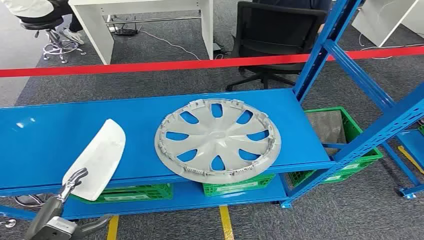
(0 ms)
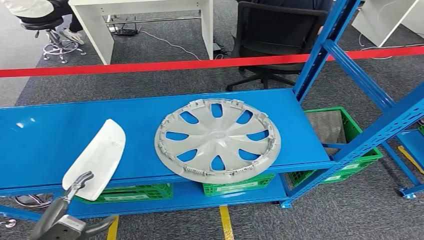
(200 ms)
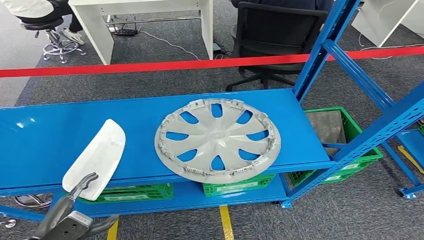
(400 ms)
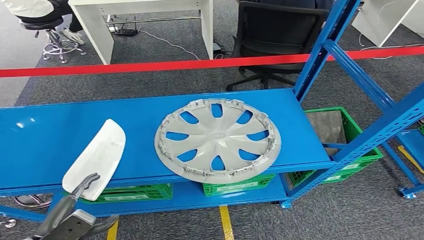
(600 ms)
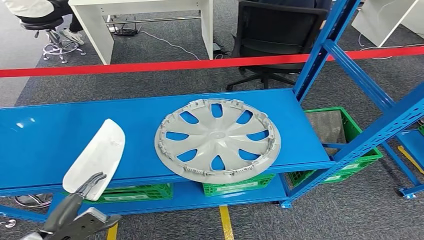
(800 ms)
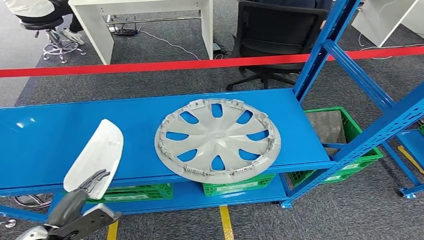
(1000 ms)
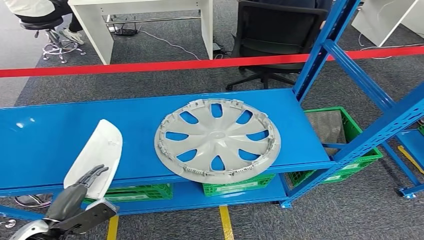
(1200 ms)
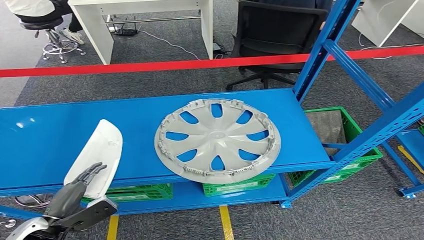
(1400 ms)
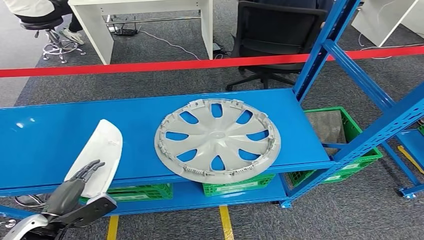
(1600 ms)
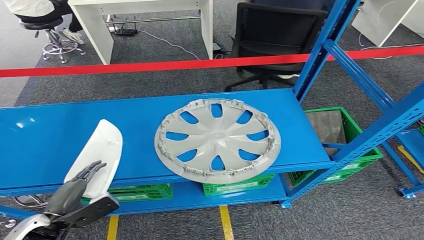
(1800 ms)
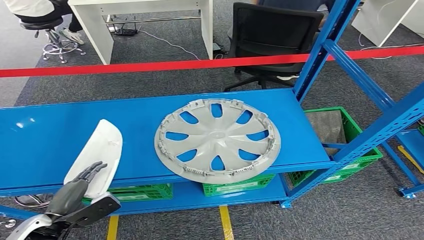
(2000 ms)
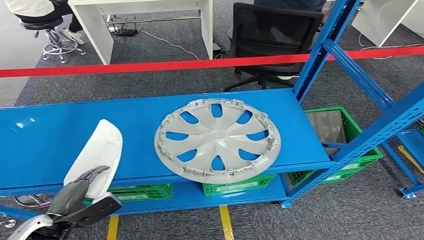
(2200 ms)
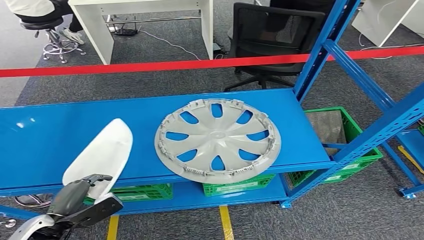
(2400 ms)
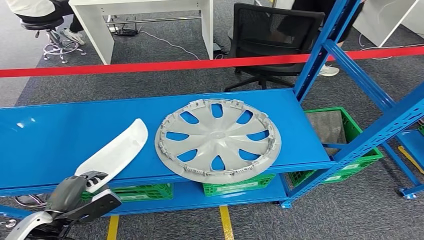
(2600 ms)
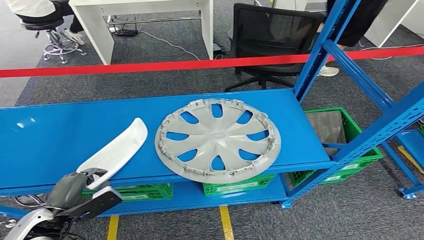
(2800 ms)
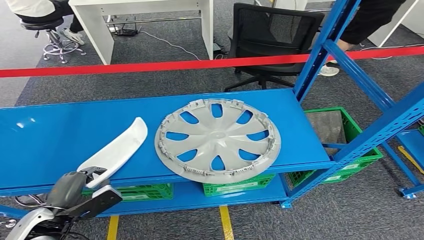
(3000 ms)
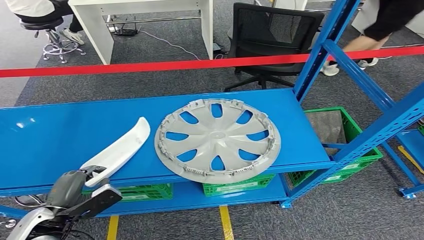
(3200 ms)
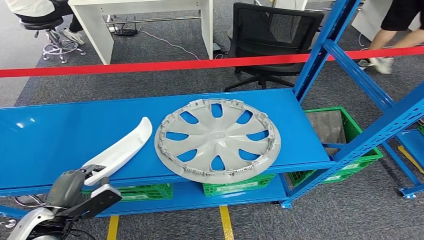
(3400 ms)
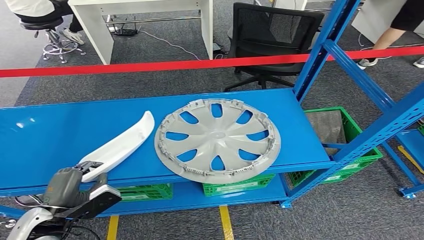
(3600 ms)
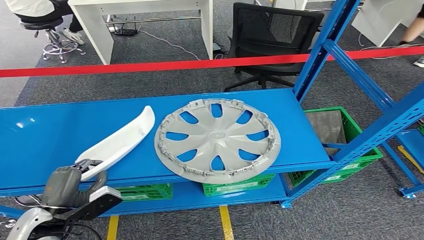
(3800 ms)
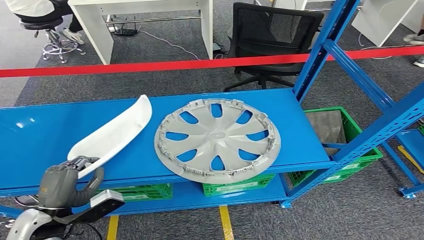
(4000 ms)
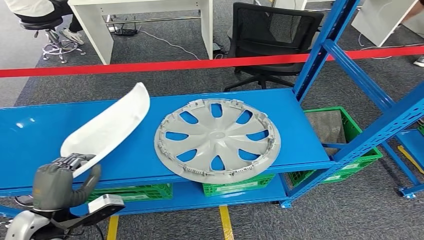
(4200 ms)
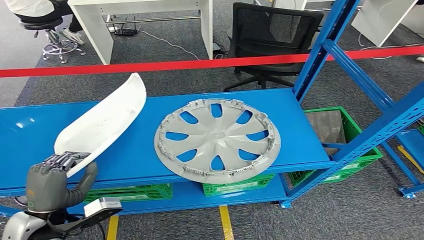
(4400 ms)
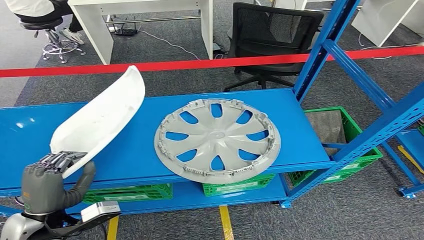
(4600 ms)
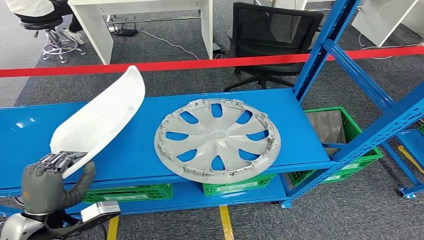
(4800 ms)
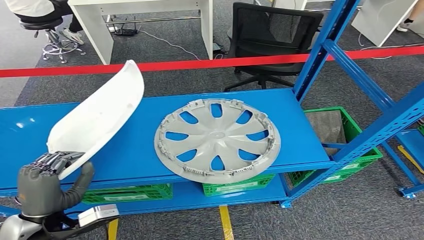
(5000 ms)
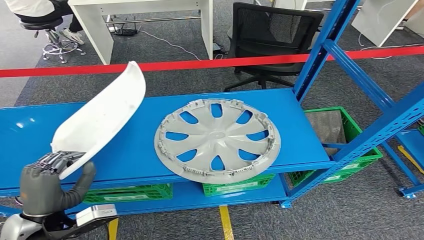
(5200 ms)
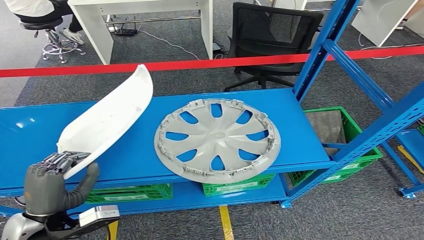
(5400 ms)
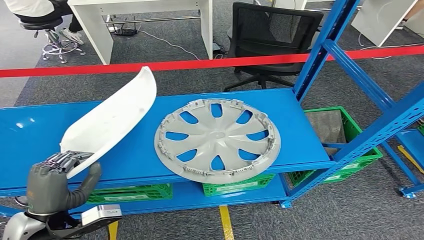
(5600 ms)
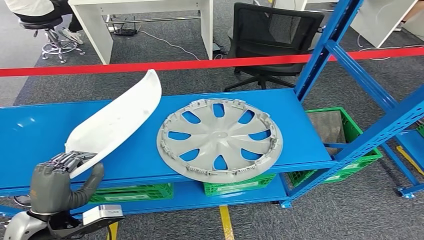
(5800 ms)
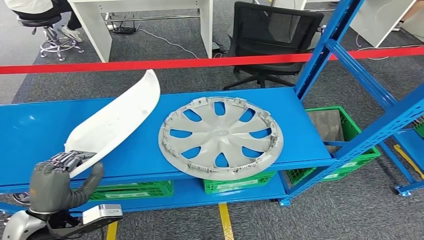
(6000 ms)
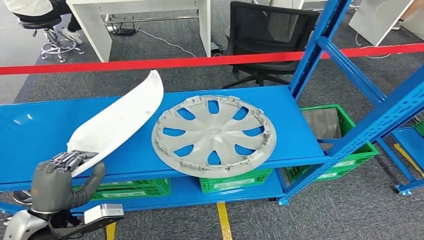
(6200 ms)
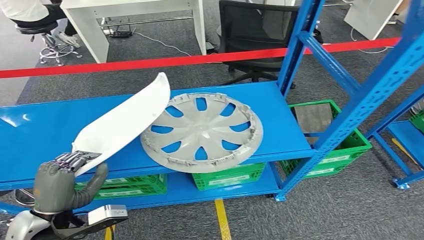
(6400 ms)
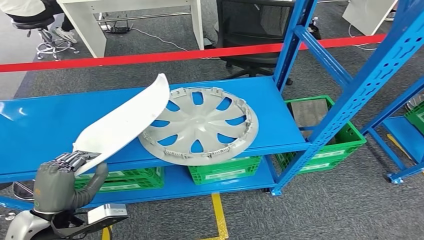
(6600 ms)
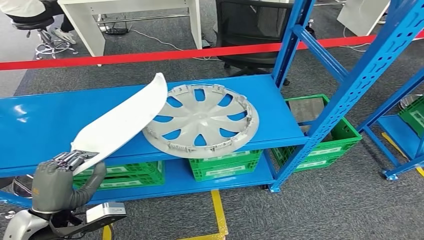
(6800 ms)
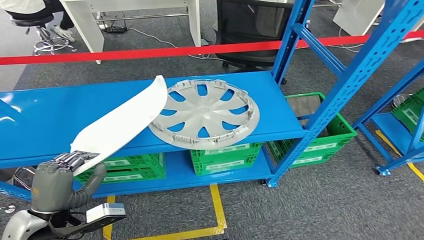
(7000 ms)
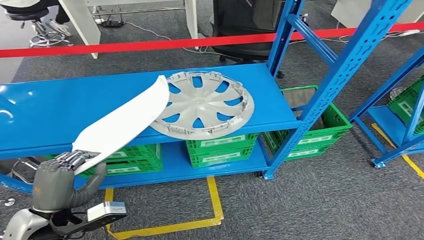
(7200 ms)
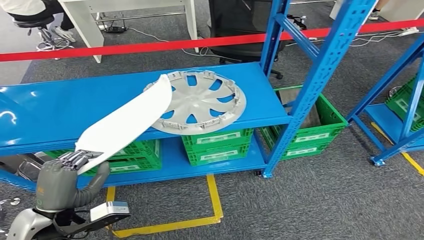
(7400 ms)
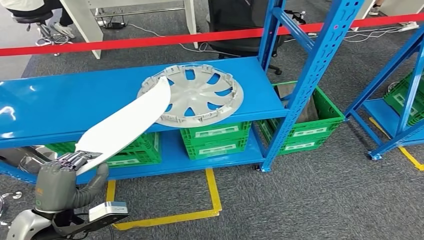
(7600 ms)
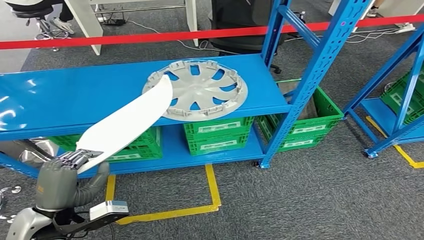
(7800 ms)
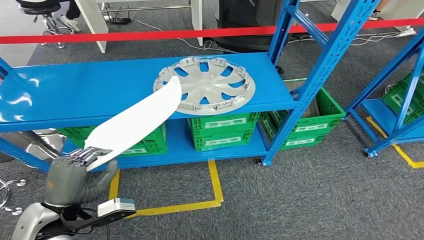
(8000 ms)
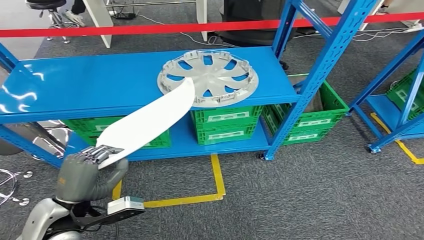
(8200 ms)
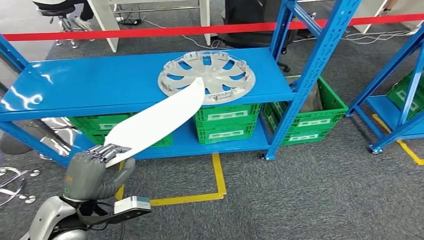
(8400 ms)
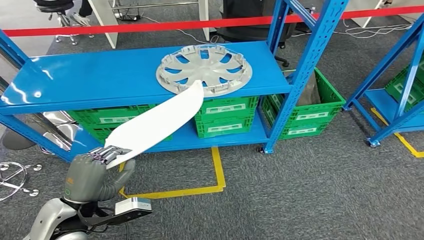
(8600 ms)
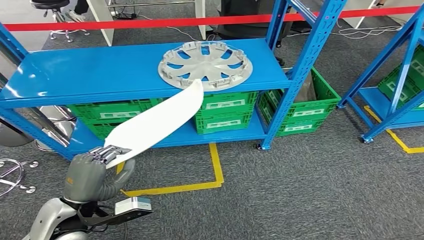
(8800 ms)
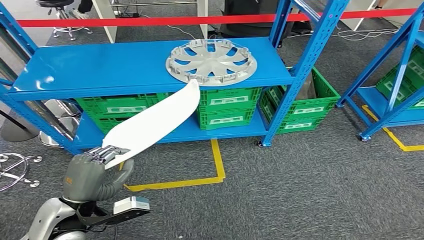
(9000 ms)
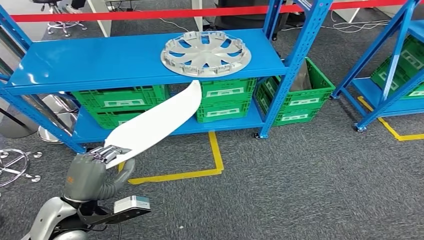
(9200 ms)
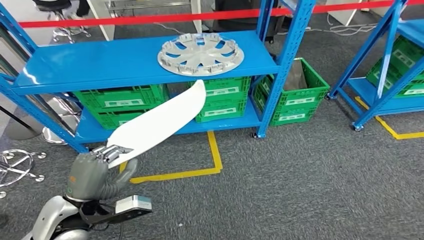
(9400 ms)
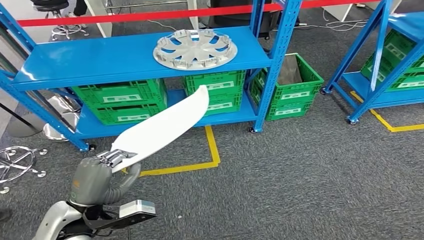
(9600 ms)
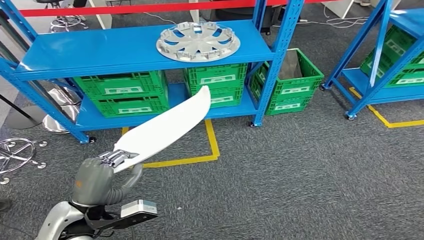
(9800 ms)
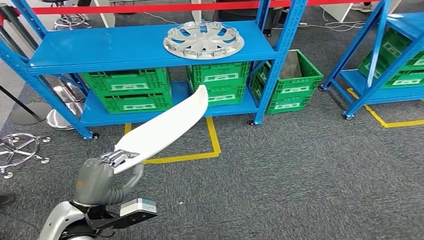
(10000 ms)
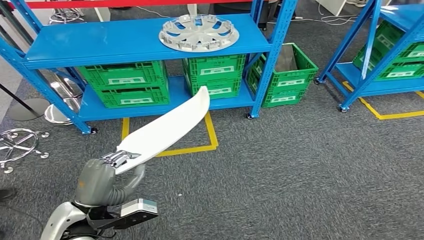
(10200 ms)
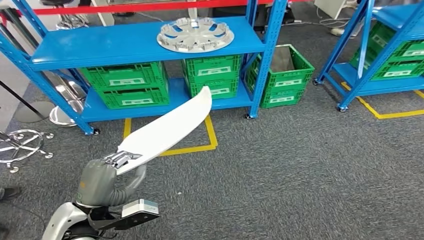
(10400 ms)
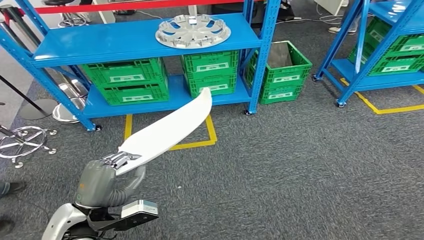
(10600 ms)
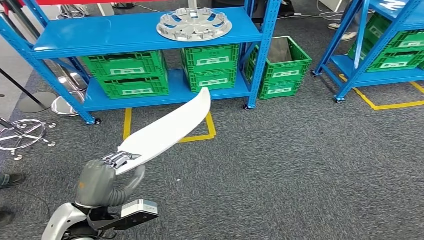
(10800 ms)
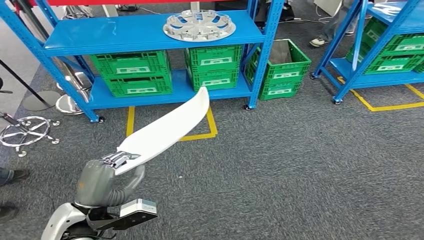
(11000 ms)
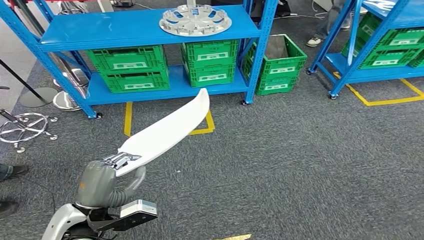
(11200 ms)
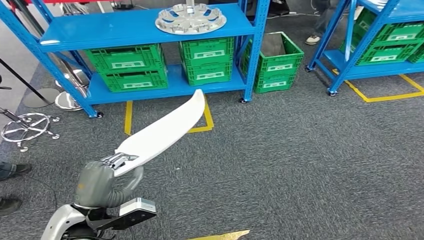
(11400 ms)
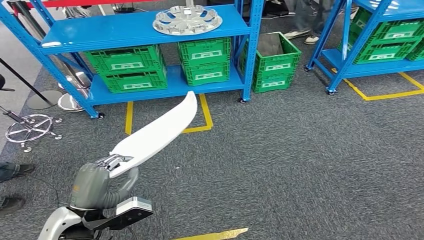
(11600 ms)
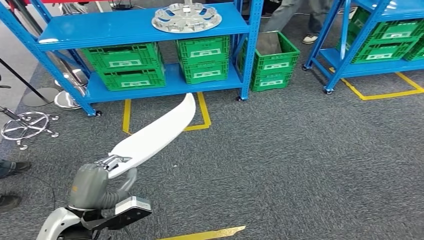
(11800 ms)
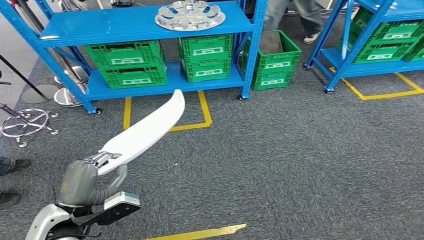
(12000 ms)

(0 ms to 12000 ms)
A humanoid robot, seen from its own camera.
Step, 0 ms - 8600 ms: Pick up the small component from the shelf.
1600 ms - 3000 ms: The hands make only small movements.
3000 ms - 4400 ms: The left hand moves approximately 5 cm.
4400 ms - 6000 ms: The hands move only a little.

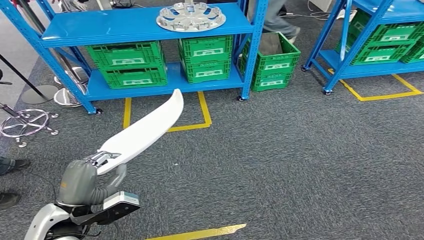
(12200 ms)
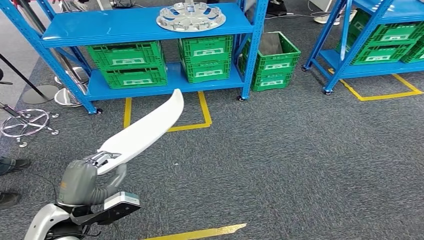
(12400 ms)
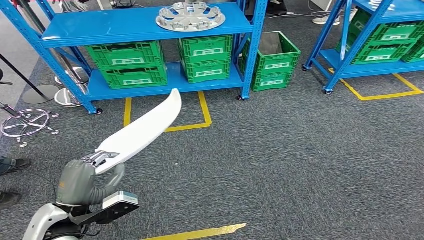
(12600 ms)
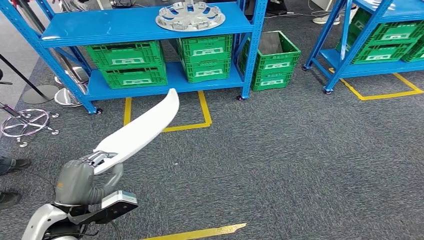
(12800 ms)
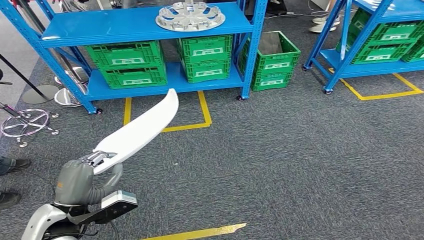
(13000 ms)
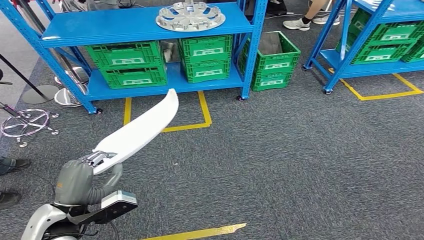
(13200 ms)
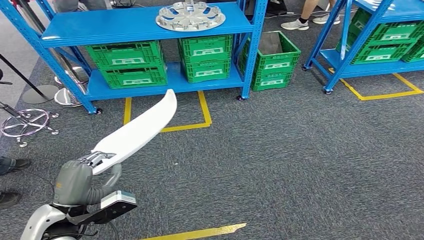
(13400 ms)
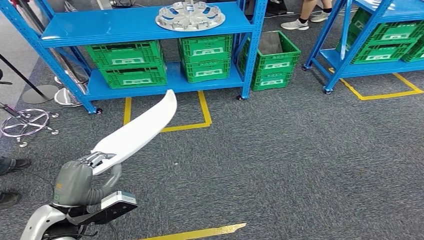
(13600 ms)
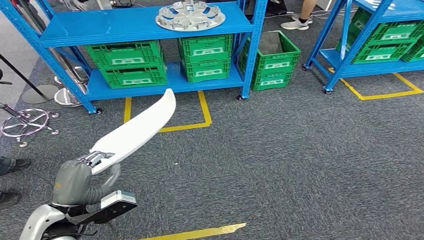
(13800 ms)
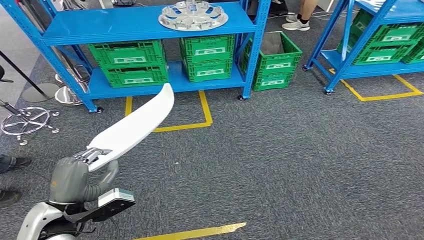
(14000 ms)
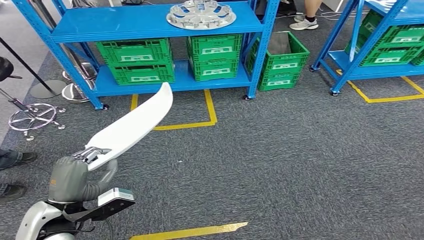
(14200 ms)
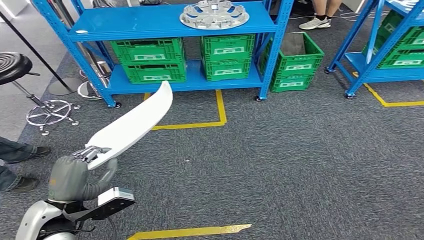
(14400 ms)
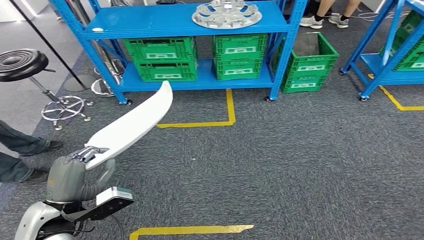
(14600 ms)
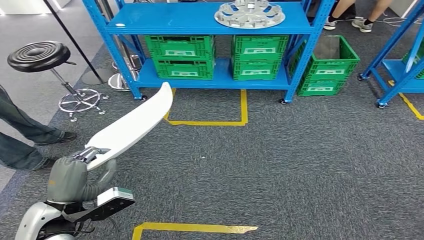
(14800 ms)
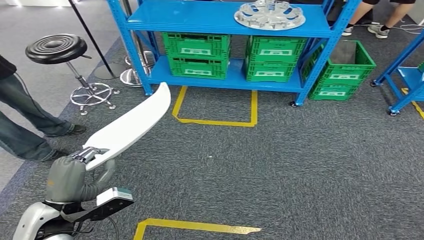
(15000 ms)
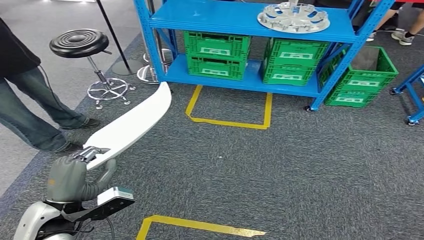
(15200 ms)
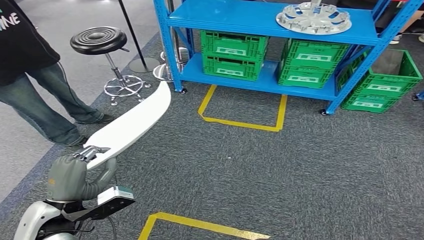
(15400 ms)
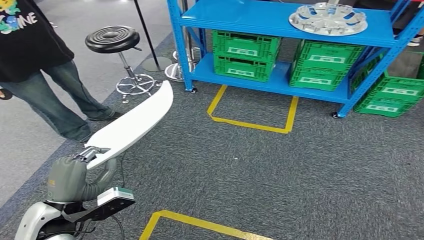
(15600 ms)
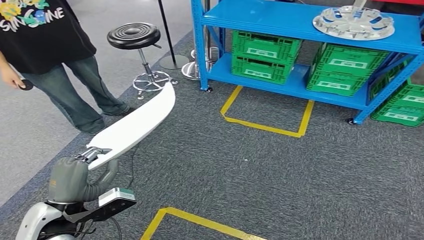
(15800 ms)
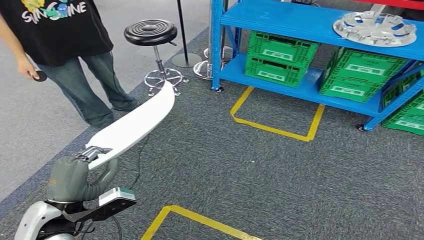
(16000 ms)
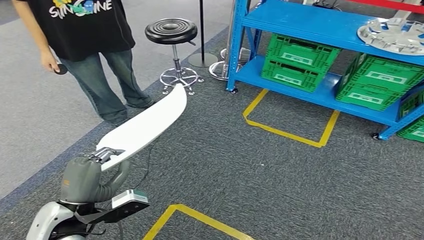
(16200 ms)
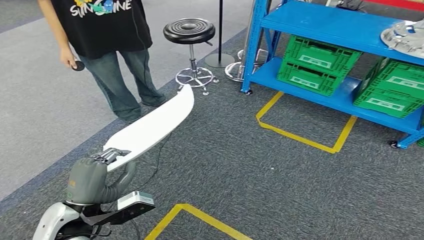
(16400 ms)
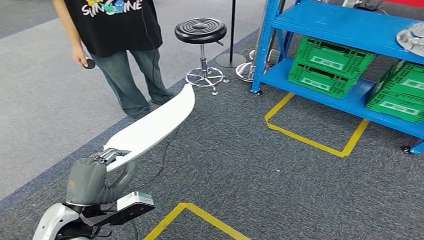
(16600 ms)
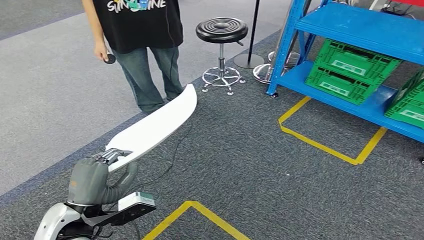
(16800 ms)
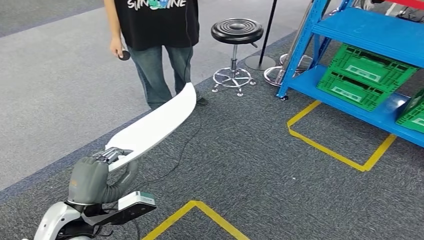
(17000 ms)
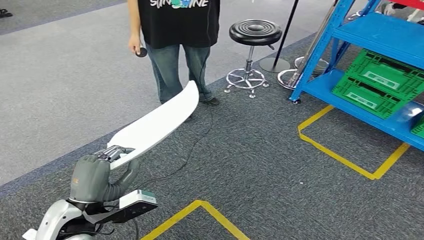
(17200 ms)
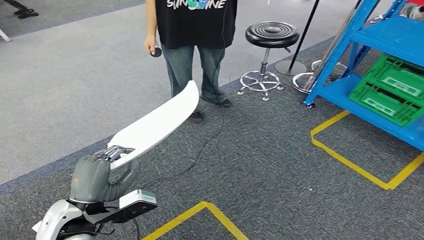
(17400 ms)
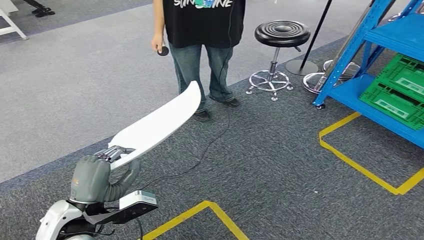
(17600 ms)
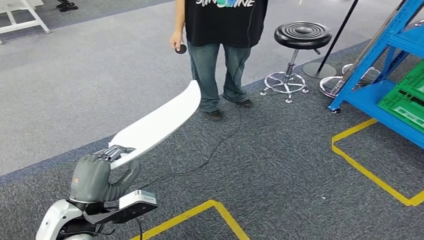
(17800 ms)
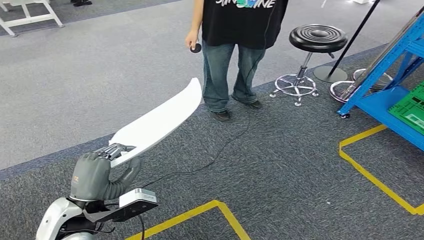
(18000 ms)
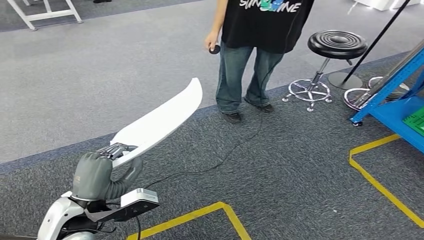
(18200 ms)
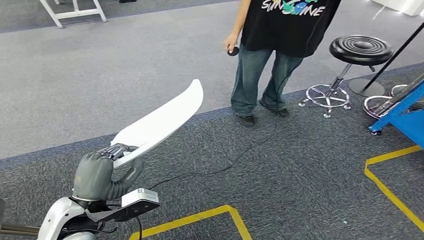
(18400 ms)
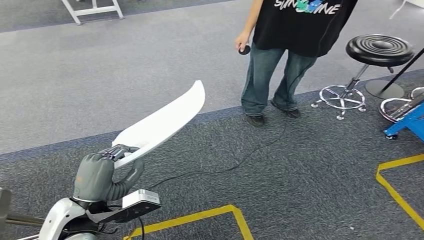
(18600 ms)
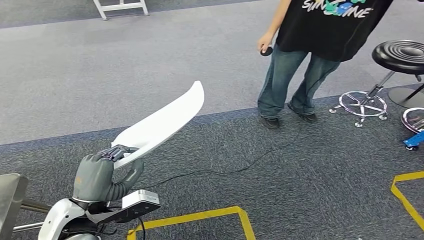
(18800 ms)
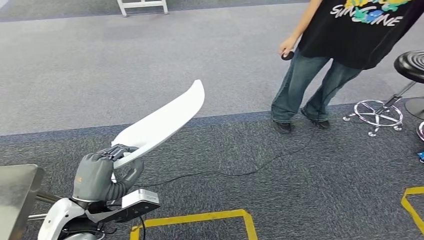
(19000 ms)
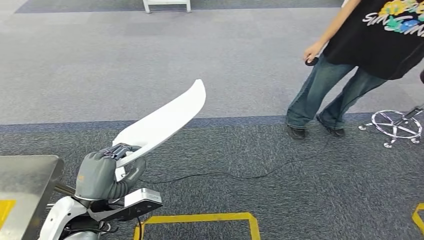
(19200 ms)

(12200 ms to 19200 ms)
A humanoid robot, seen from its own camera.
12200 ms - 13600 ms: The hands move only a little.
